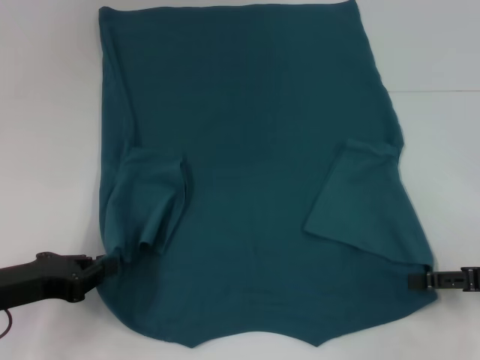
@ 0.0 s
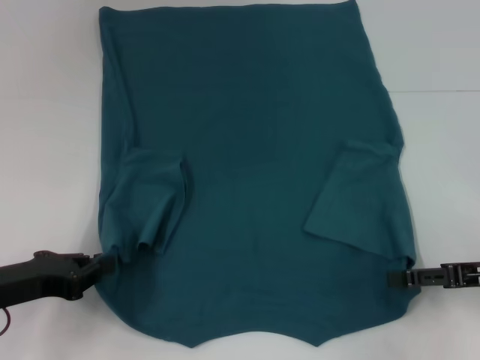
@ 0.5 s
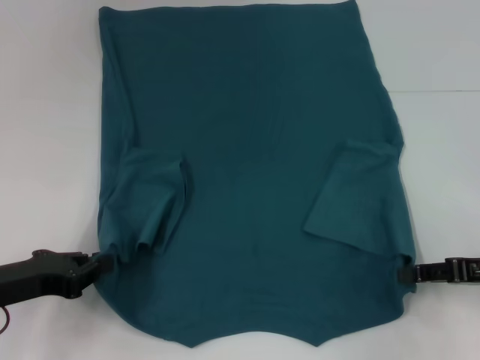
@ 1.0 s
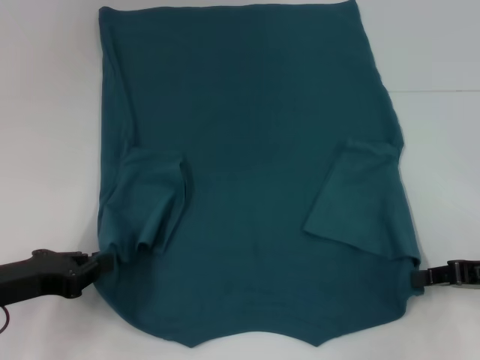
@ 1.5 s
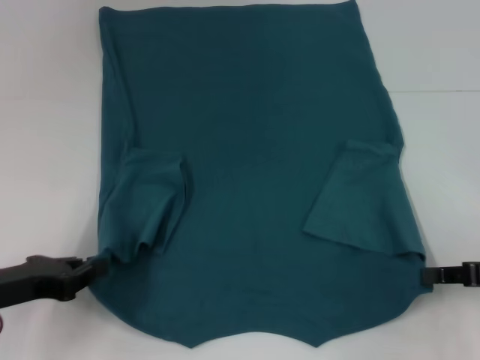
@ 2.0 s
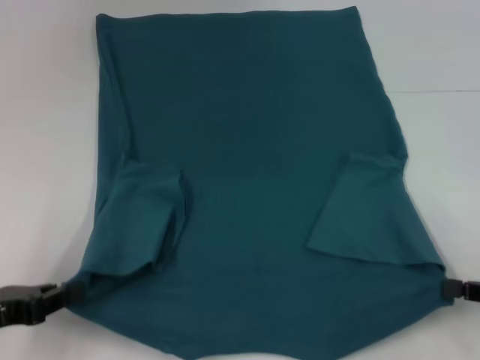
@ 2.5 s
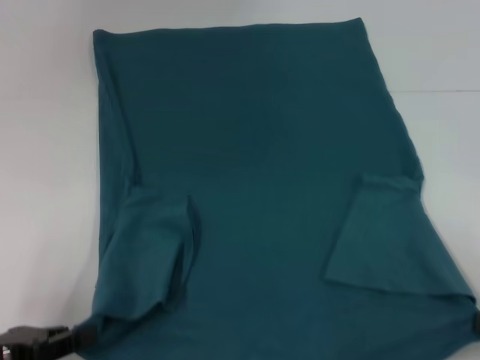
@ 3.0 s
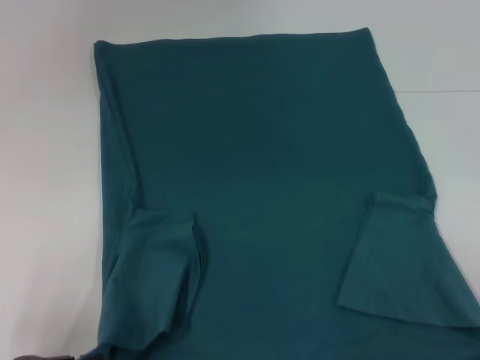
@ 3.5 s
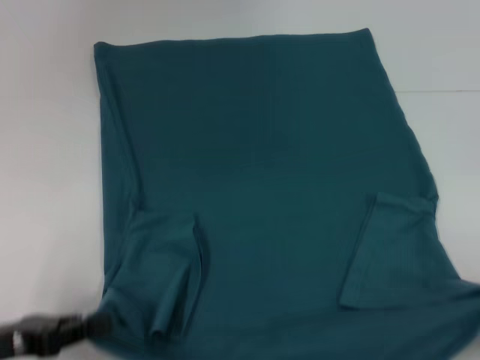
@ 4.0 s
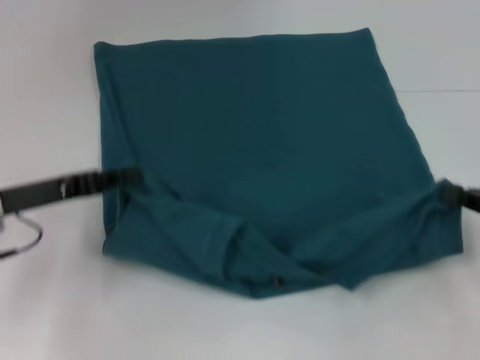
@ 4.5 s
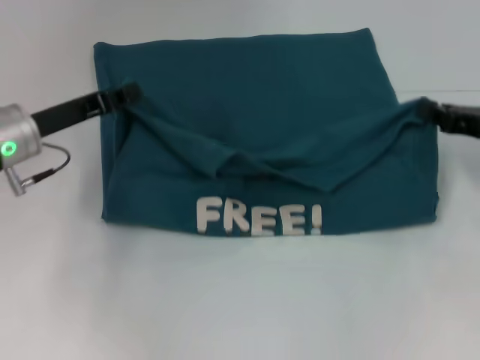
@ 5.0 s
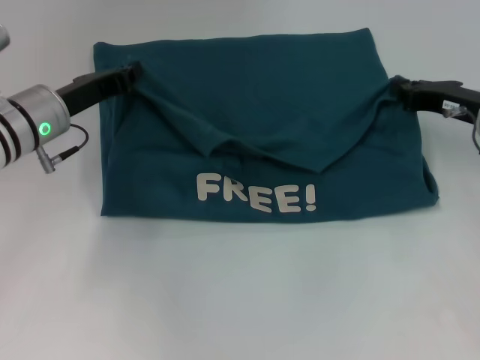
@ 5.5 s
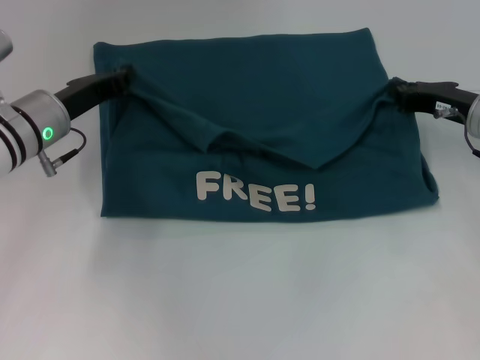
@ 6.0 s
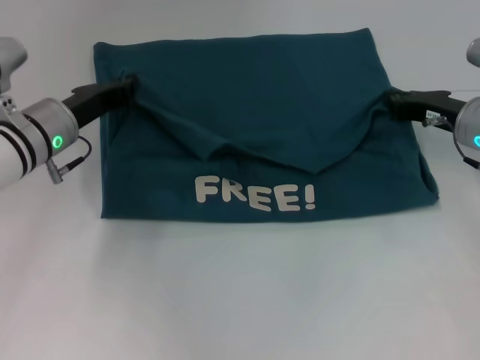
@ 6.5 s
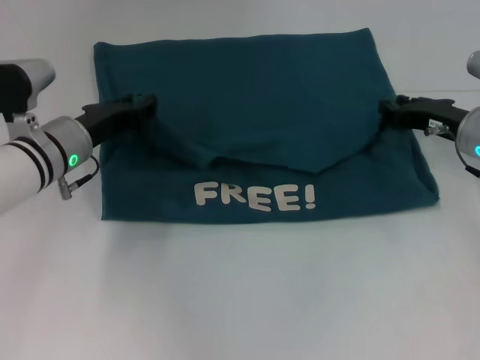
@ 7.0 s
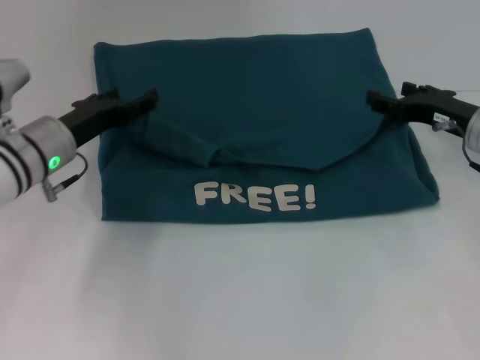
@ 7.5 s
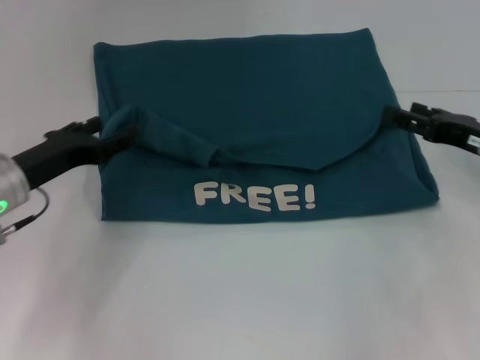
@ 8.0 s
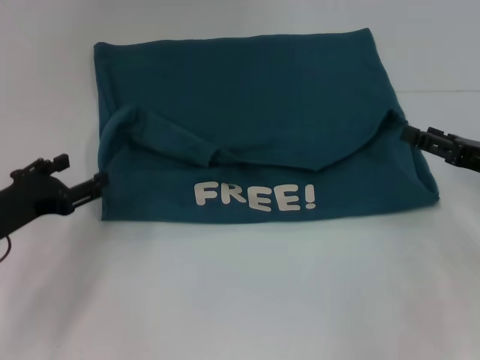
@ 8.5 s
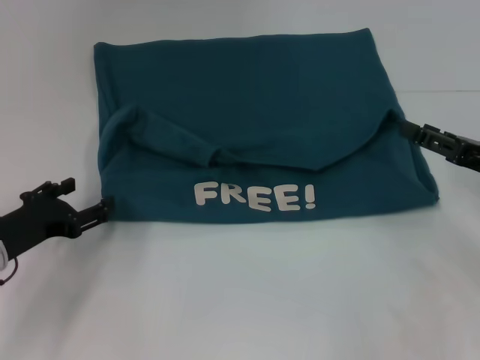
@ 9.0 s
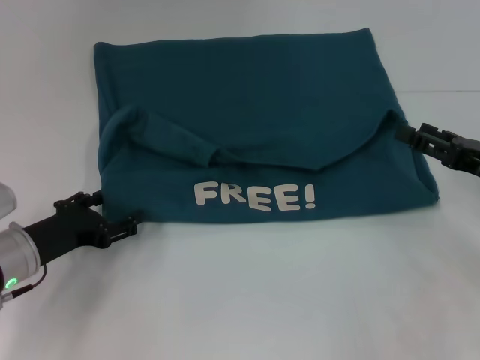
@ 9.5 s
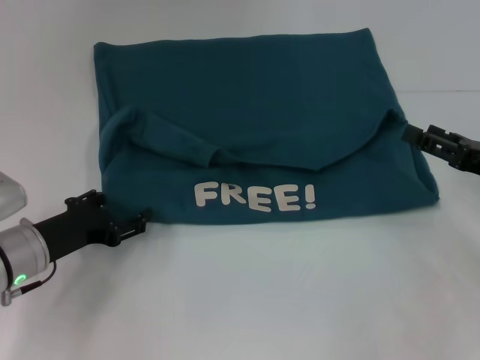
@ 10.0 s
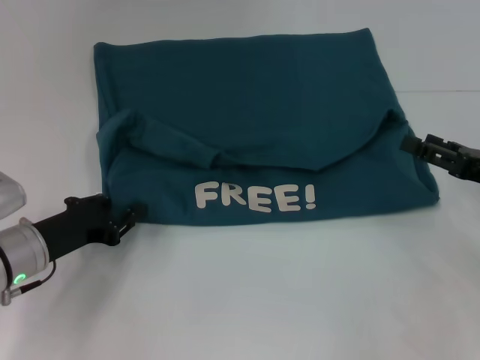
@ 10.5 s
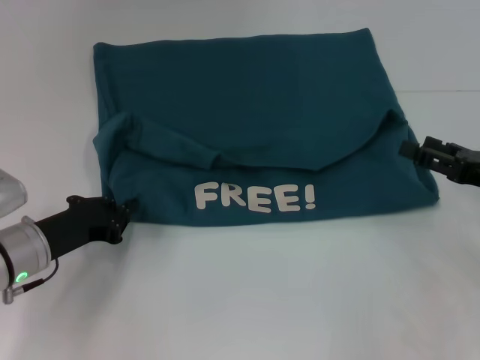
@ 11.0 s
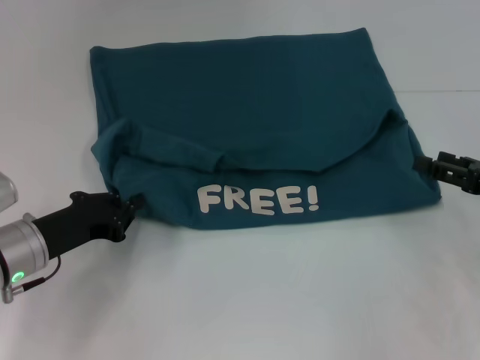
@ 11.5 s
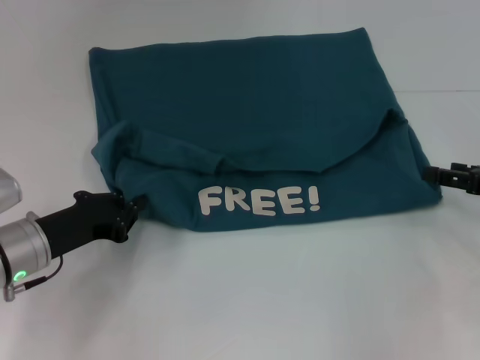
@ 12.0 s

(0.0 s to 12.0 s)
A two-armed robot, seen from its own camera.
Step, 2.0 s - 7.5 s: Fold the clothes to the left.
Step, 2.0 s - 7.5 s: Fold the clothes to the right.
0.0 s - 2.0 s: The right gripper closes its fingers.
2.0 s - 4.0 s: The right gripper goes approximately 10 cm backward and to the right. Meanwhile the left gripper is displaced backward by about 5 cm.
4.0 s - 6.0 s: The right gripper goes some 25 cm forward and to the left; the left gripper moves forward, roughly 20 cm.
6.0 s - 8.0 s: The two grippers go roughly 5 cm backward. The left gripper opens up. The right gripper opens up.
8.0 s - 10.0 s: The left gripper goes about 5 cm downward.
10.0 s - 12.0 s: The left gripper closes up.

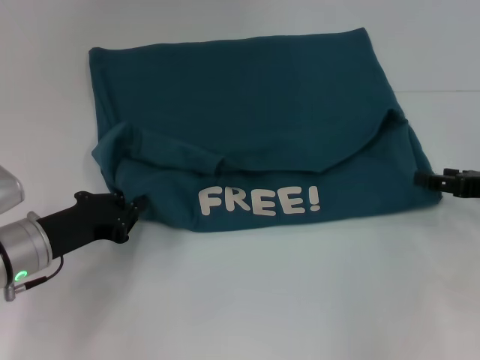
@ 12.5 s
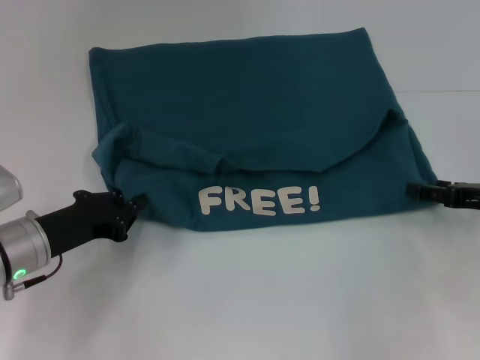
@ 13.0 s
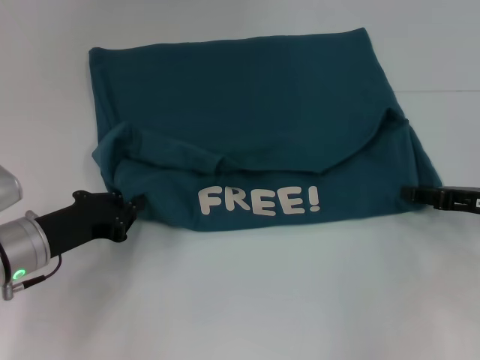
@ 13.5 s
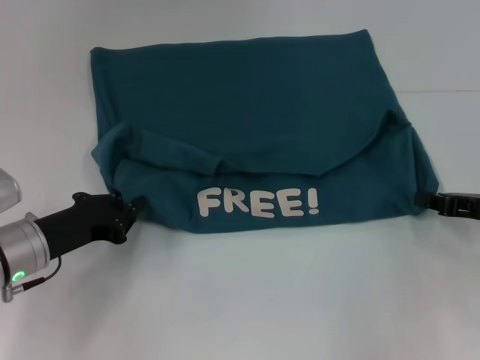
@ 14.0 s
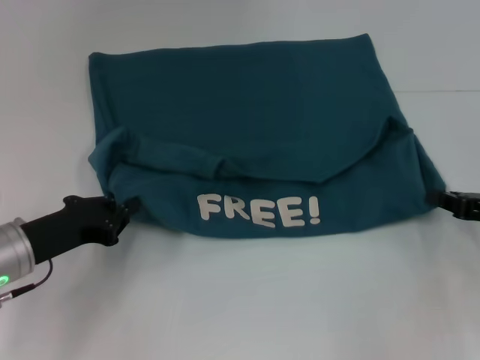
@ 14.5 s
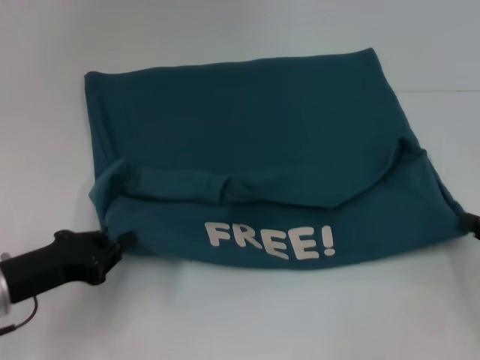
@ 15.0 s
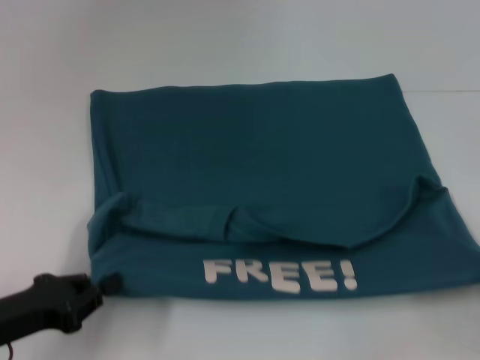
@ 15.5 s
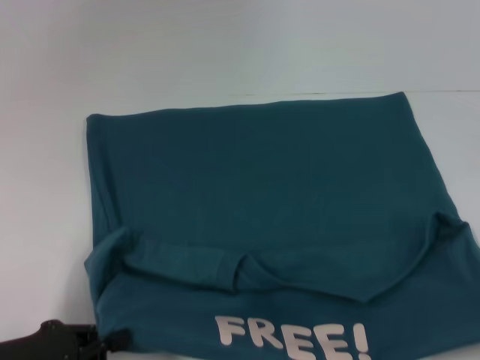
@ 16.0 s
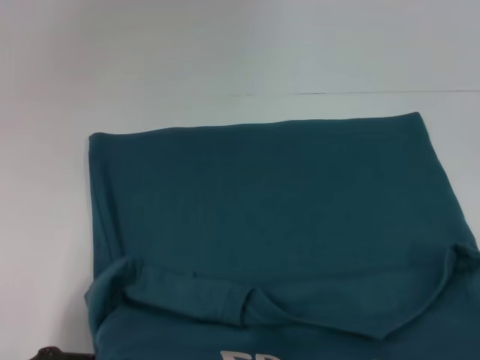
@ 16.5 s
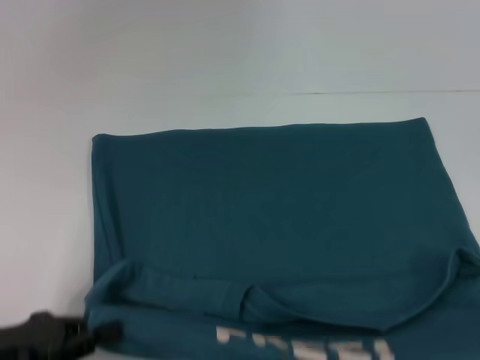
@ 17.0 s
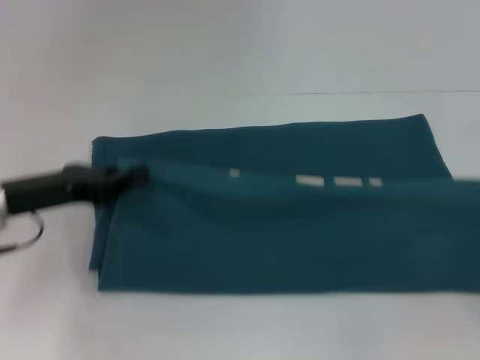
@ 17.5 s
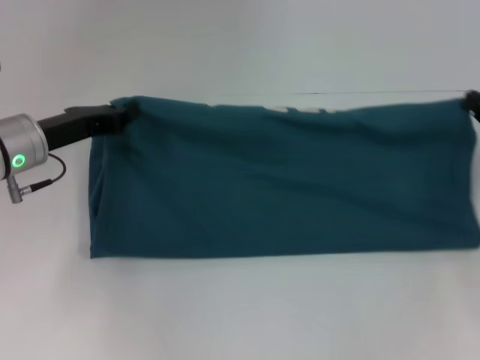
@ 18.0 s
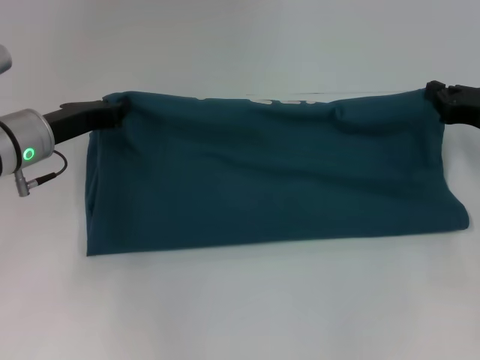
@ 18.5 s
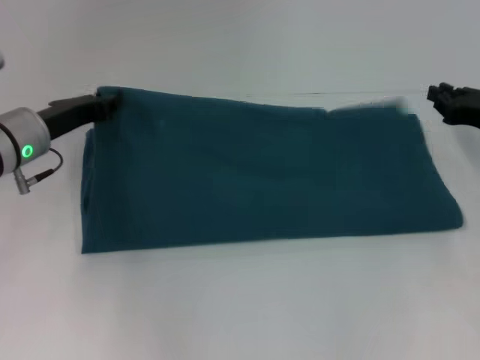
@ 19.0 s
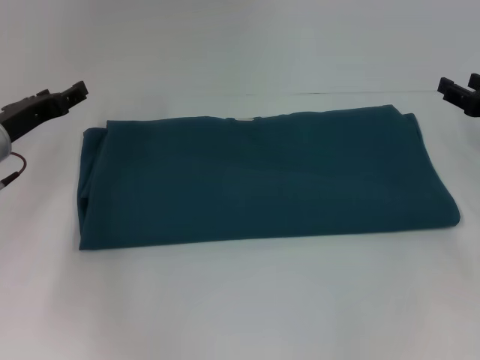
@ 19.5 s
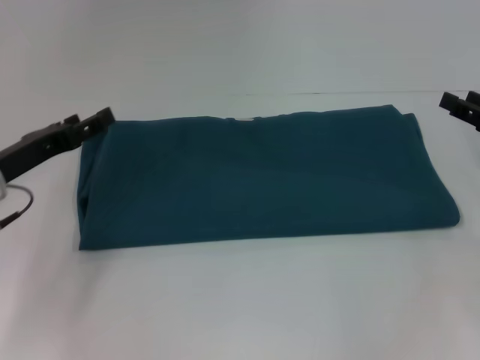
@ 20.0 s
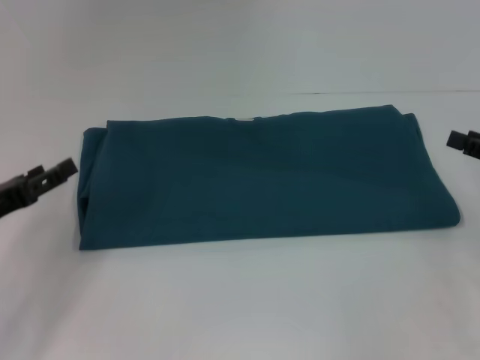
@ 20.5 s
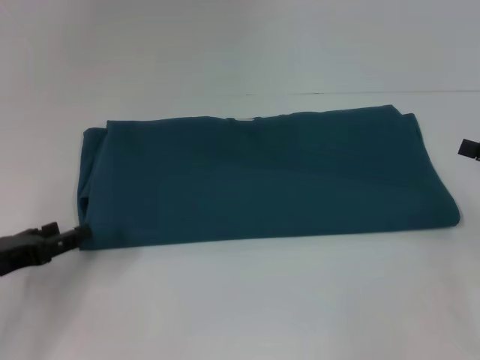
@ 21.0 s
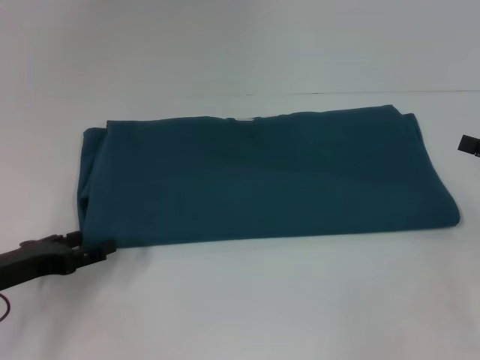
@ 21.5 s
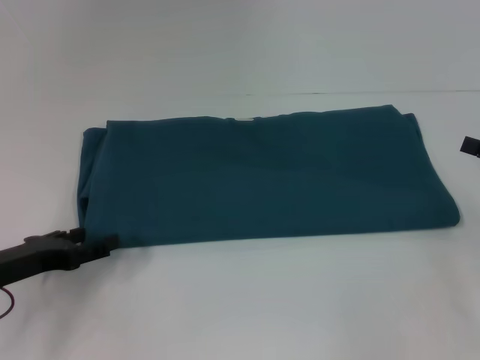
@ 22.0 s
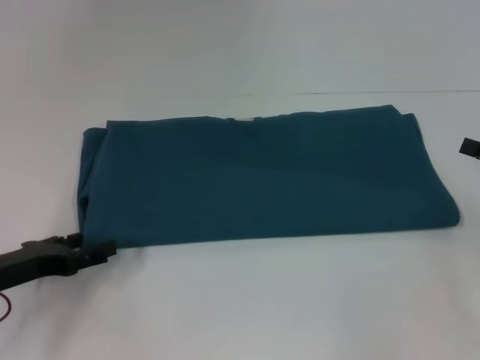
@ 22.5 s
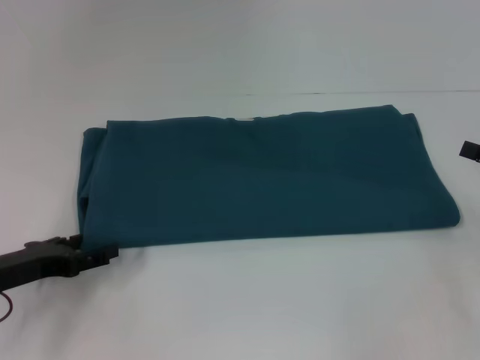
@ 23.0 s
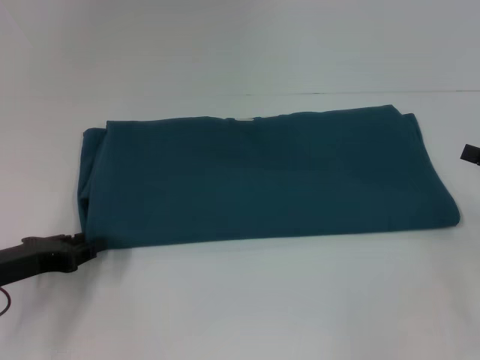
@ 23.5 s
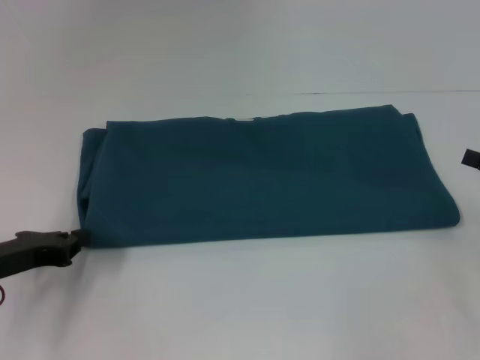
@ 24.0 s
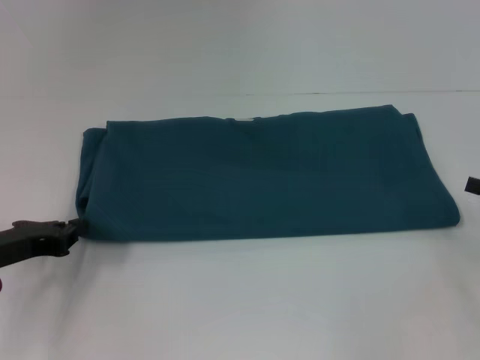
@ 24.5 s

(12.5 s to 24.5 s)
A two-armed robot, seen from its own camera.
Step, 12.5 s - 16.5 s: Pull the clothes with your left hand.
Step, 12.5 s - 16.5 s: Pull the clothes with your right hand.
Step, 17.0 s - 19.0 s: Fold the clothes to the right.
12.5 s - 14.5 s: The right gripper closes.
14.5 s - 16.5 s: The right gripper goes approximately 20 cm backward; the left gripper shifts approximately 10 cm backward.
16.5 s - 18.5 s: The two grippers go about 25 cm forward.
18.5 s - 20.5 s: The left gripper travels backward and to the left by some 15 cm, and opens; the right gripper moves backward, approximately 5 cm, and opens up.
22.5 s - 24.5 s: The left gripper closes its fingers.

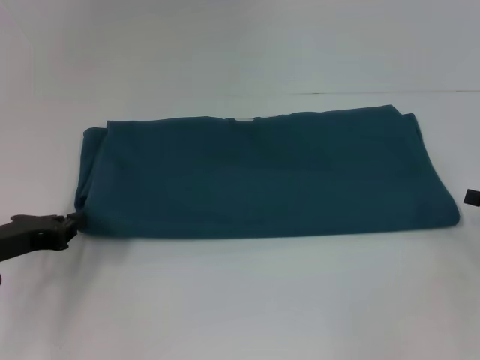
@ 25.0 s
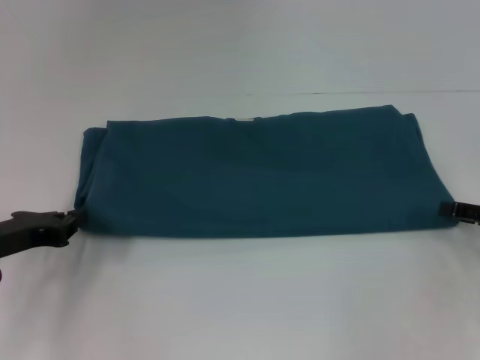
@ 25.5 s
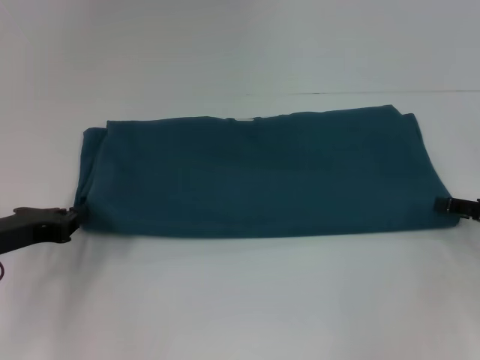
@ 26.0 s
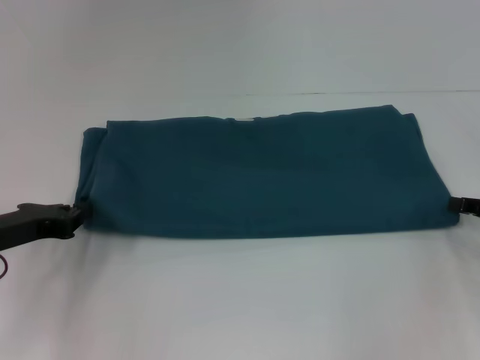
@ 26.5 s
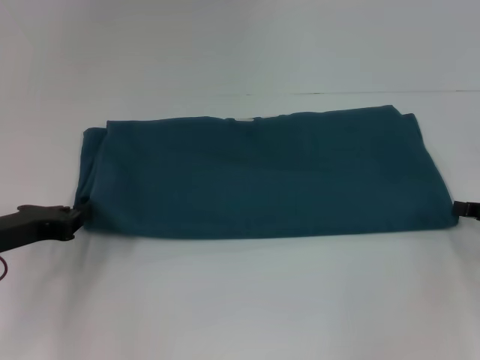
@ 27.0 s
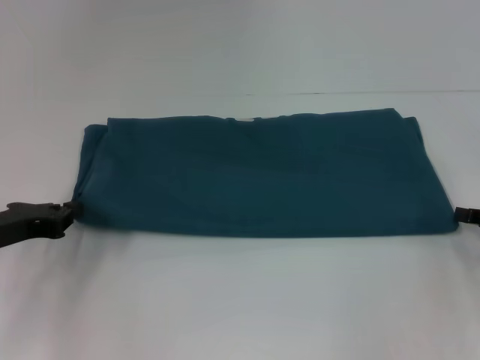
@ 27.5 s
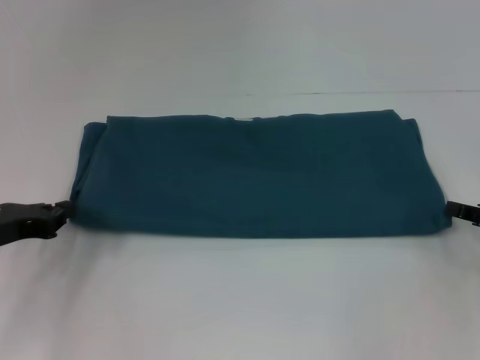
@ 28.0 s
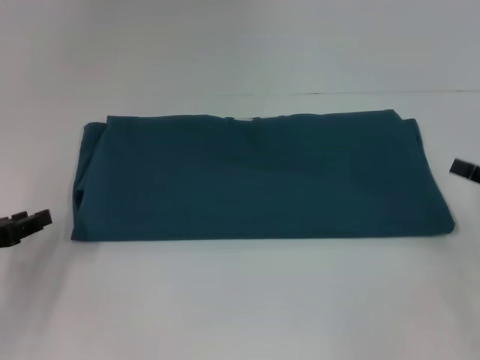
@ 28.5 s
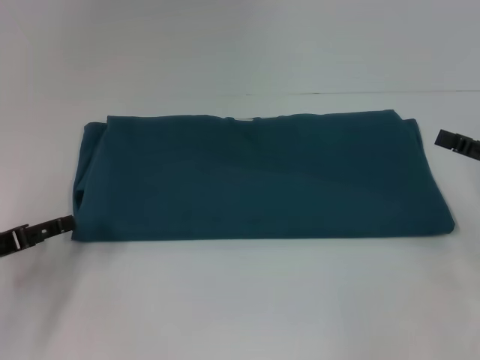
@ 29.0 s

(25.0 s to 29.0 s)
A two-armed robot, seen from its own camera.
27.0 s - 29.0 s: The left gripper opens up; the right gripper opens up.
